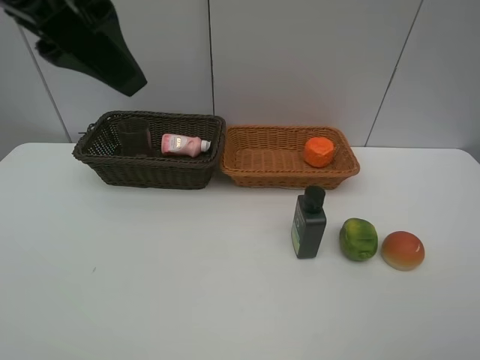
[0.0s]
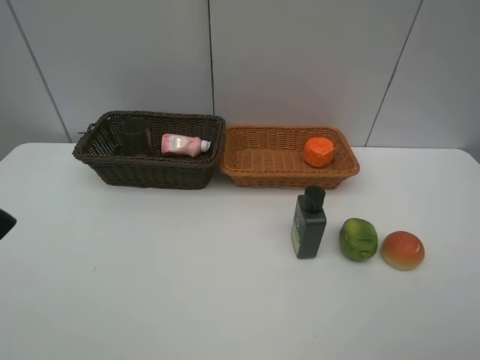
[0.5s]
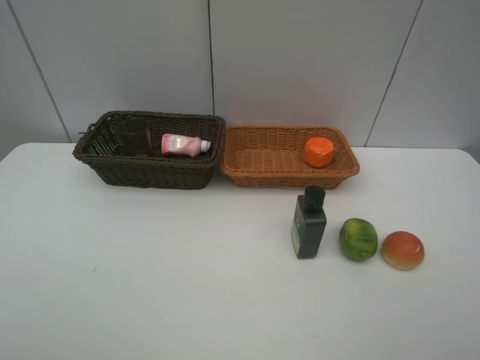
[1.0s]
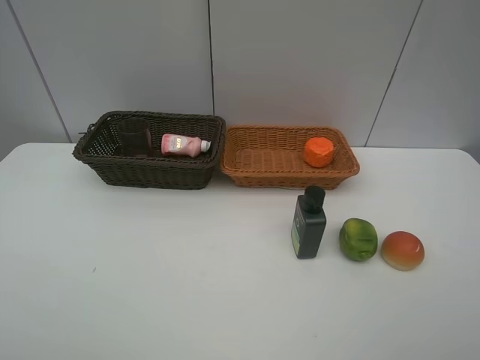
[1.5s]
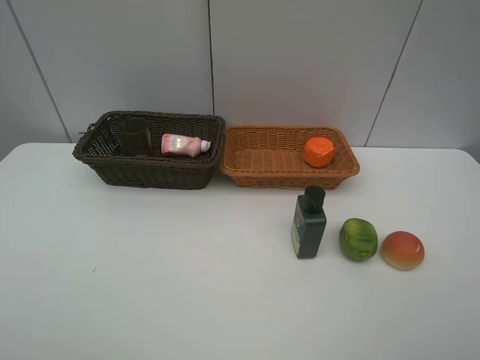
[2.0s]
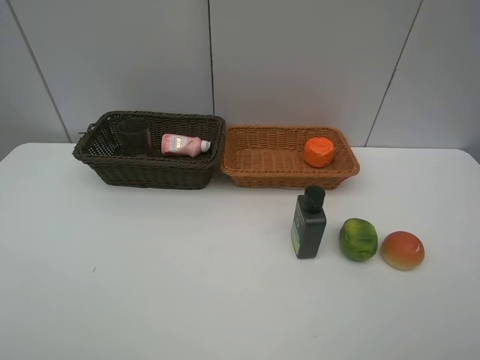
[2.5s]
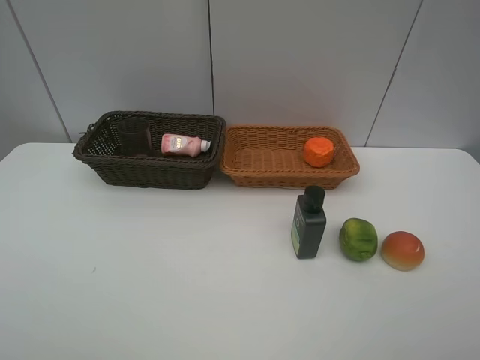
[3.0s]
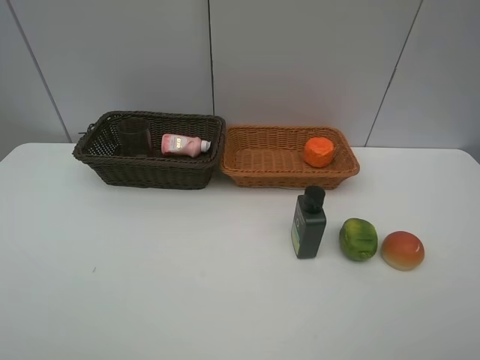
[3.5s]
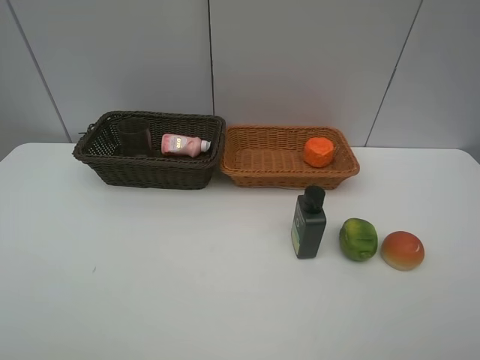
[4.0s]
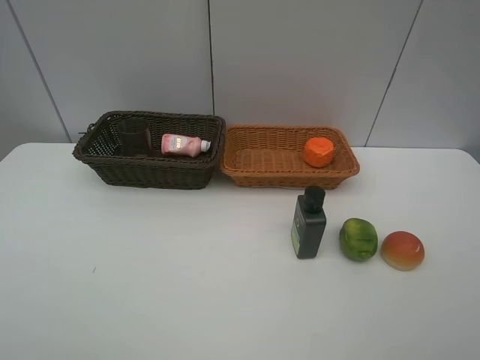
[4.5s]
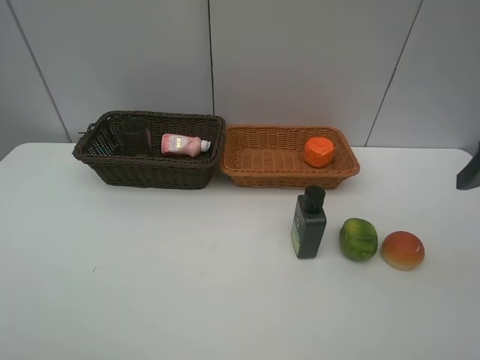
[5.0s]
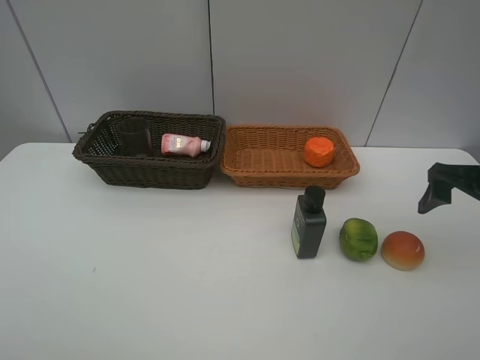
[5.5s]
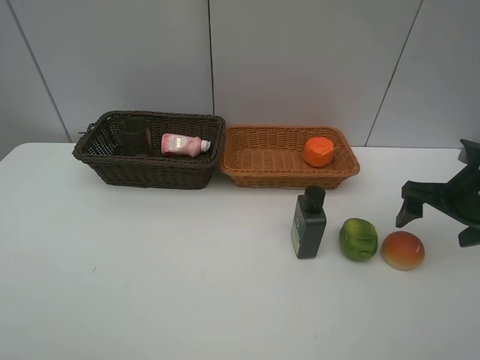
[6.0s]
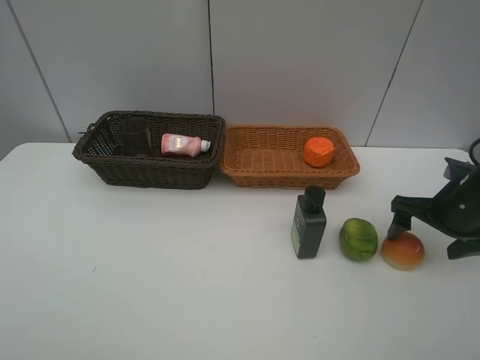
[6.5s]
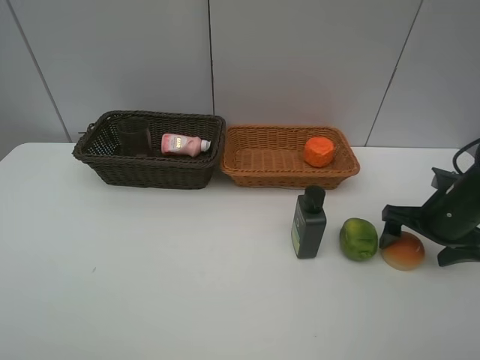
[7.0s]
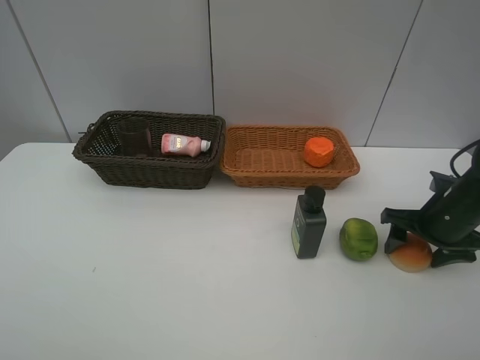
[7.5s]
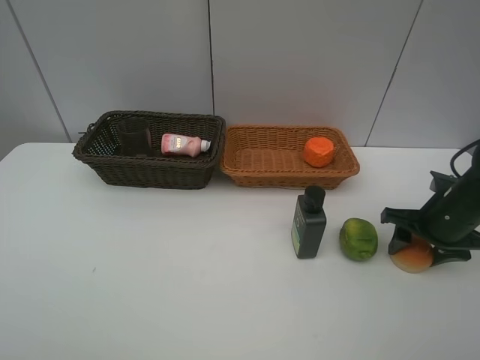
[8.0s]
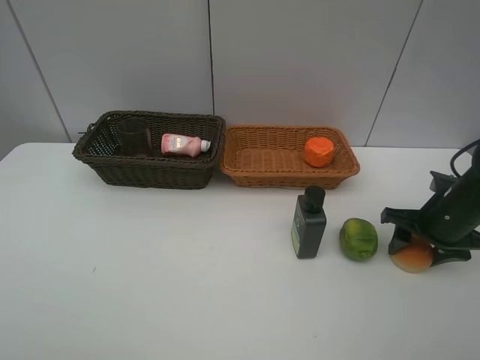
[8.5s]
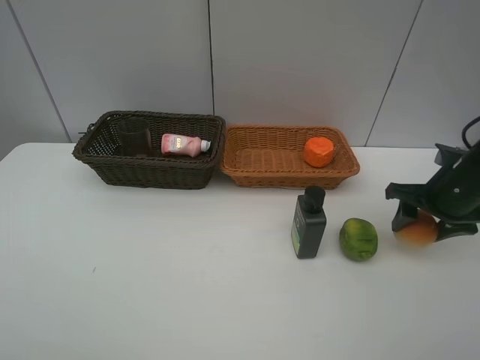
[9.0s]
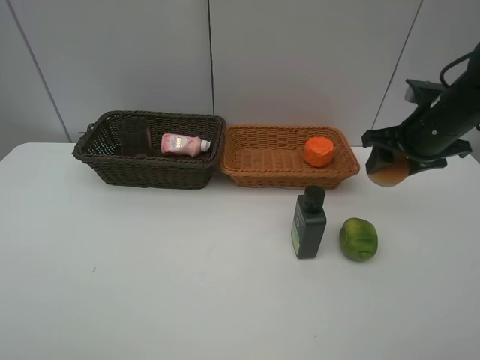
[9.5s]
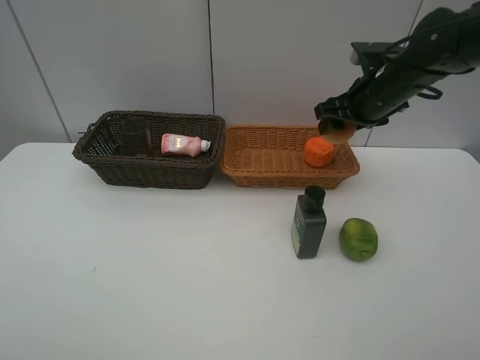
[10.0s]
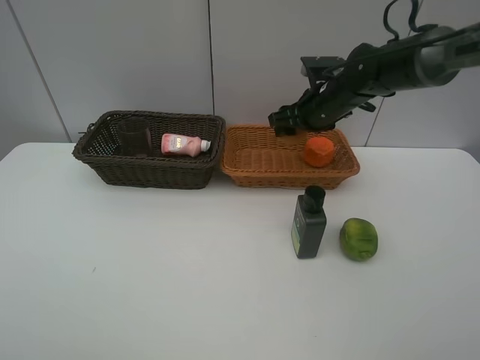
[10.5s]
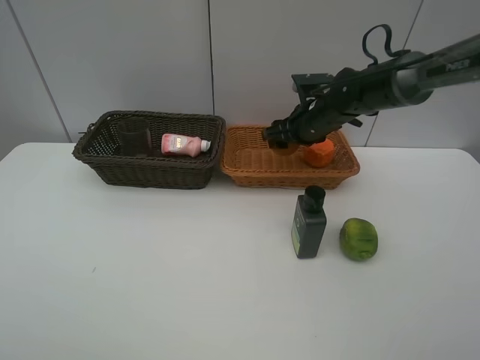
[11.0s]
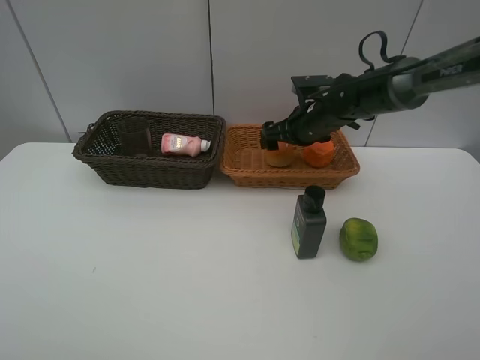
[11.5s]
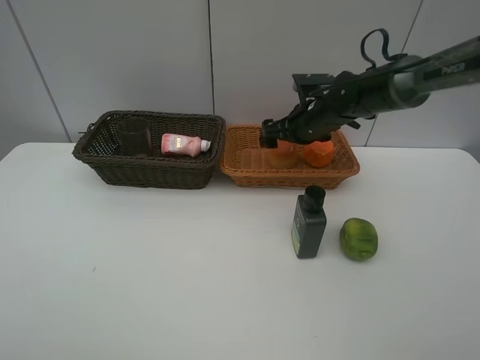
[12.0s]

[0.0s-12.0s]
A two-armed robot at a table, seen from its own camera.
Task of the whole recording: place multiple objects separately in different baskets.
0.0s to 2.0s: The left gripper goes roughly 30 cm backward, to the left and downward.
2.0s to 4.0s: The two grippers keep their place.
4.0s to 6.0s: The right gripper shifts about 30 cm forward and downward.
6.0s to 8.0s: The right gripper moves downward, roughly 5 cm, and closes its fingers.
8.0s to 10.0s: The right gripper goes roughly 20 cm upward, to the left and forward.
10.0s to 12.0s: The right gripper moves downward and to the left, about 10 cm, and opens its fingers.

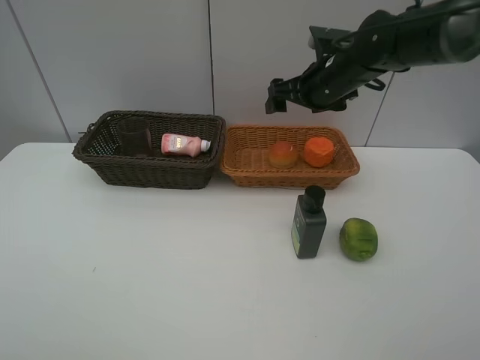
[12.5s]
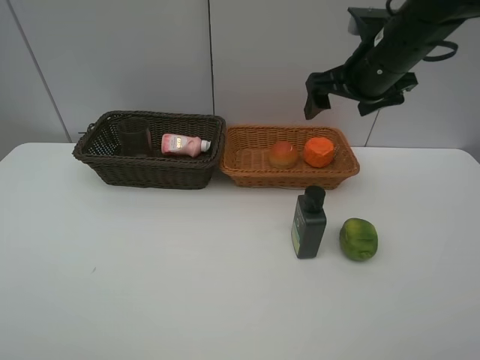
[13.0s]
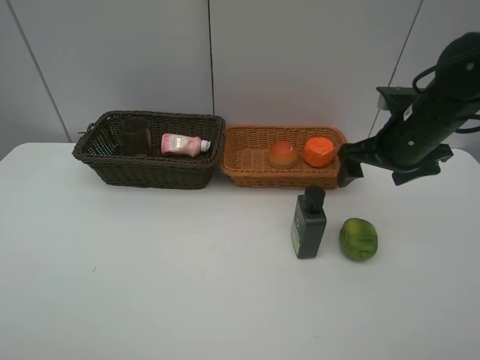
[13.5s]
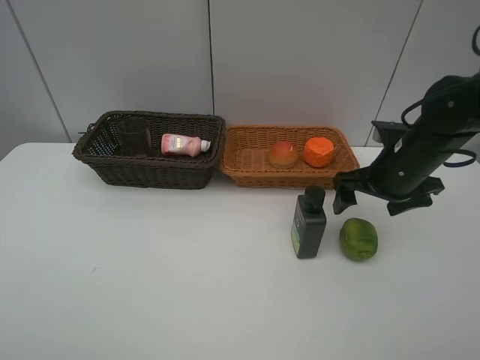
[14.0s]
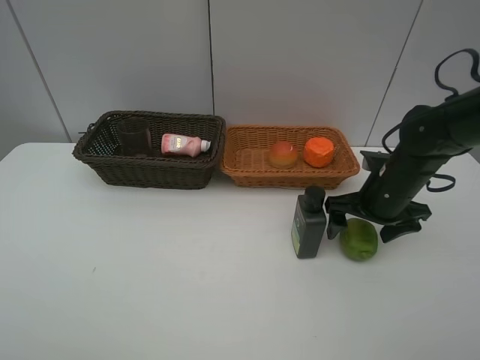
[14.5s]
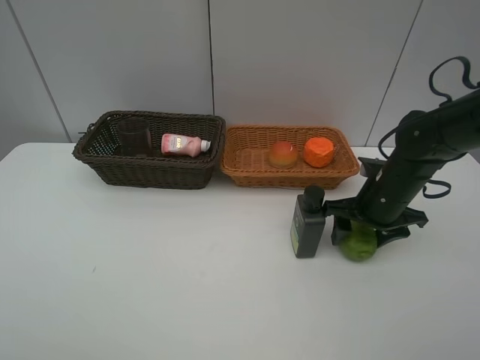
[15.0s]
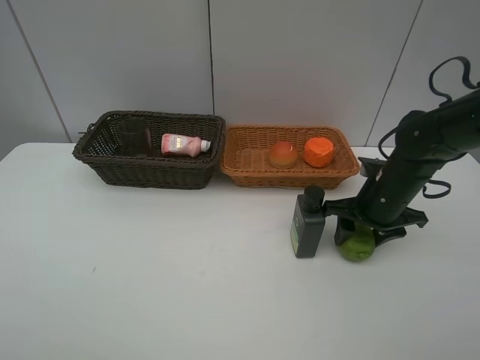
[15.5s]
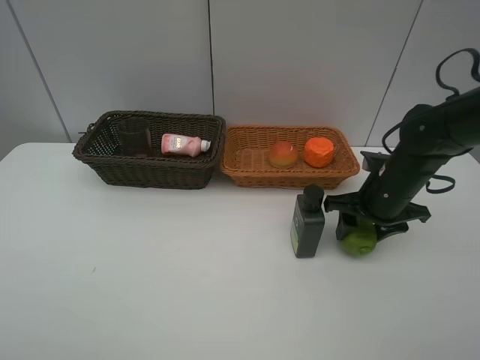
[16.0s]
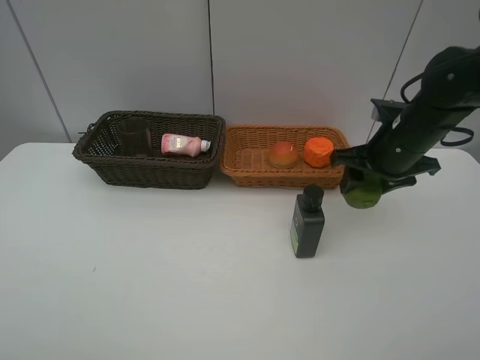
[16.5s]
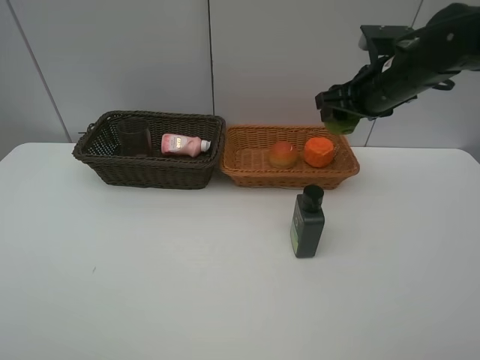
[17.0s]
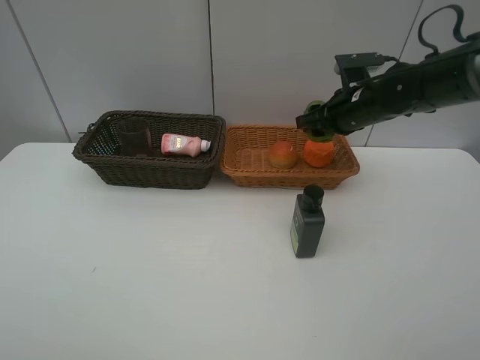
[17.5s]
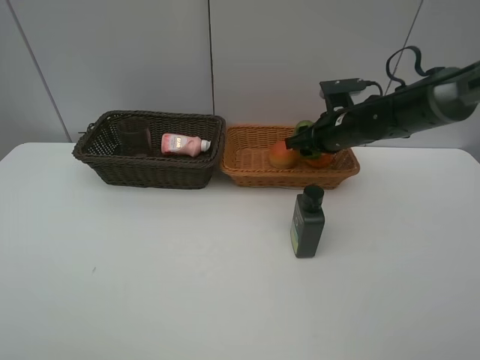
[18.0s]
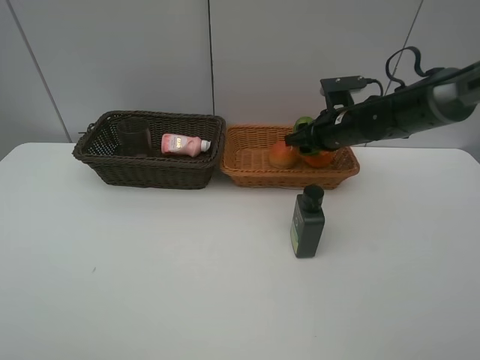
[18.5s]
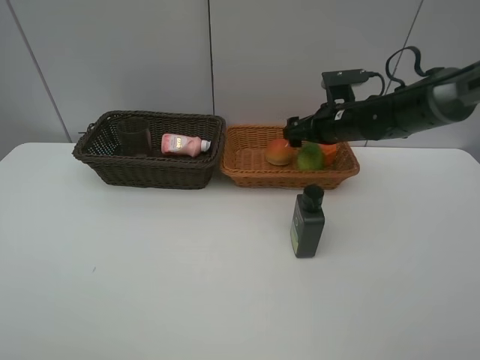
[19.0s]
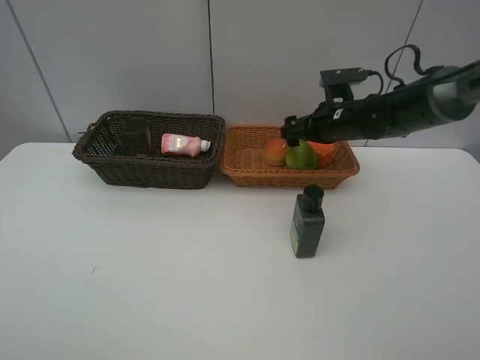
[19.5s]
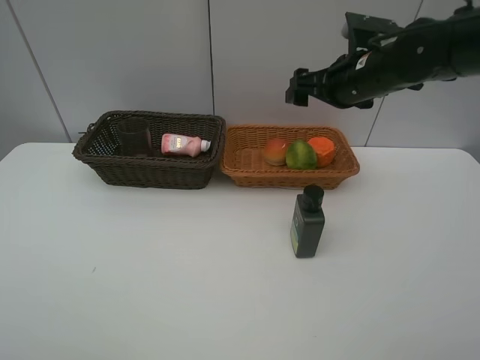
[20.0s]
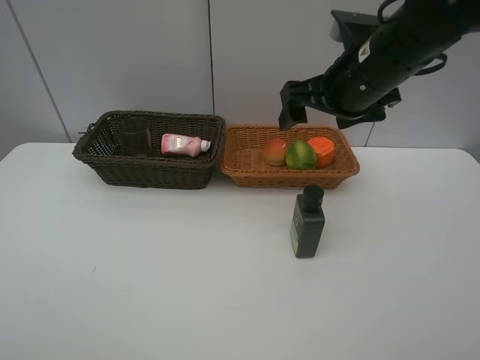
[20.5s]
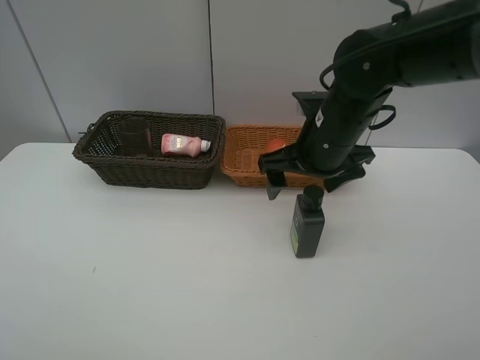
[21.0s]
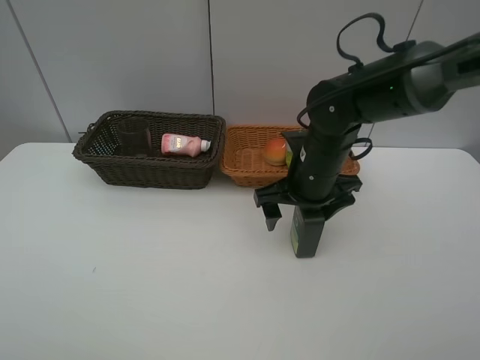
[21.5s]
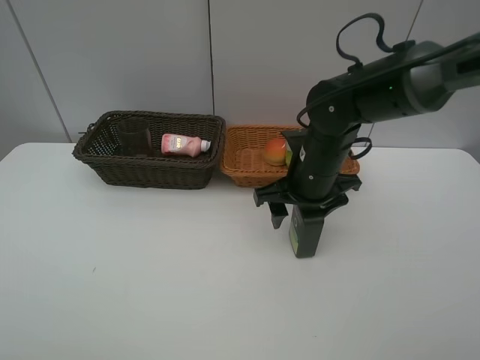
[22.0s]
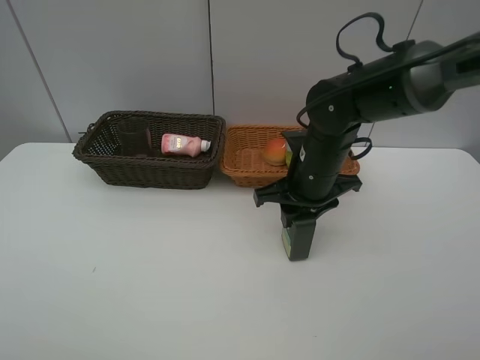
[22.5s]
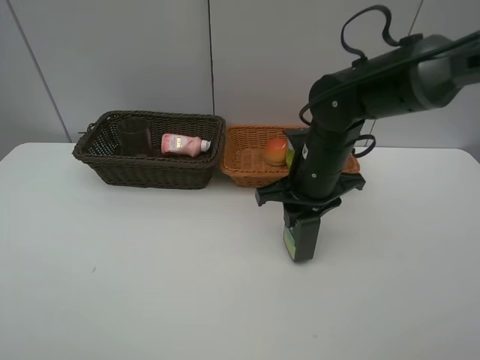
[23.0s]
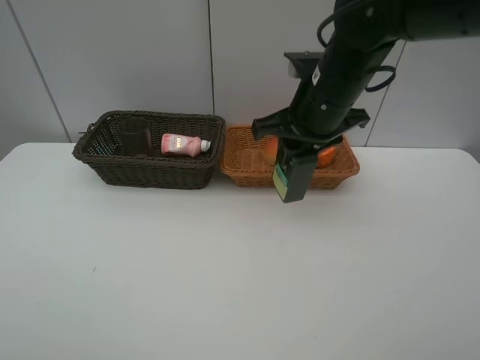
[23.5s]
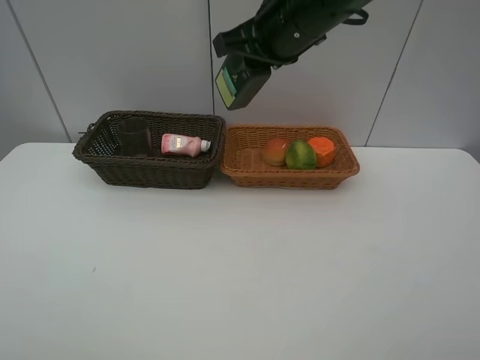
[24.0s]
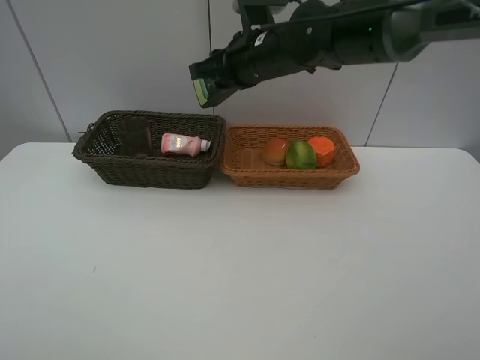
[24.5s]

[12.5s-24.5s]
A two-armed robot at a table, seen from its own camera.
Task of the whole recording: place multiple objects separately in different baskets.
12.5s to 14.5s: The right gripper moves downward, backward and to the right, about 20 cm.
14.5s to 16.5s: The right gripper travels upward by some 10 cm, and closes up.
16.5s to 18.5s: The right gripper moves forward, to the left and downward, some 10 cm.
18.5s to 20.5s: The right gripper heads upward and backward, covering about 15 cm, and opens.
20.5s to 22.5s: The right gripper is displaced downward by about 10 cm, and closes.
22.5s to 24.5s: The right gripper heads upward, to the left and forward, covering roughly 15 cm.

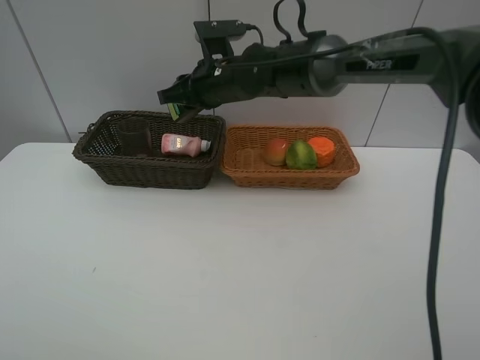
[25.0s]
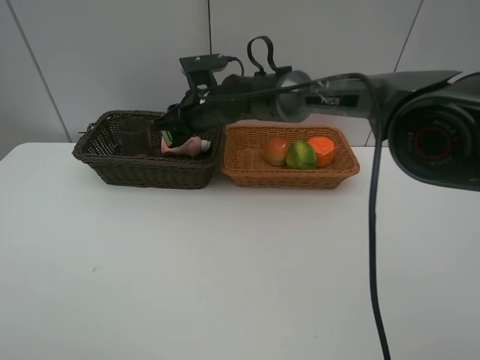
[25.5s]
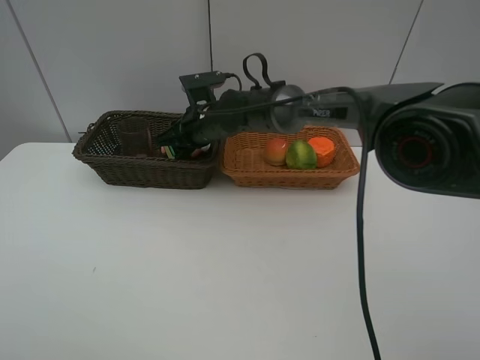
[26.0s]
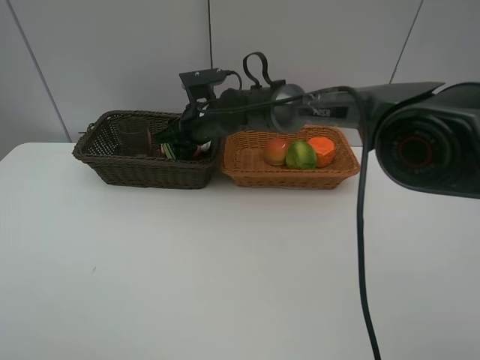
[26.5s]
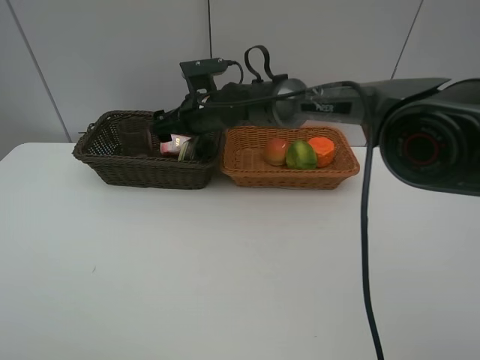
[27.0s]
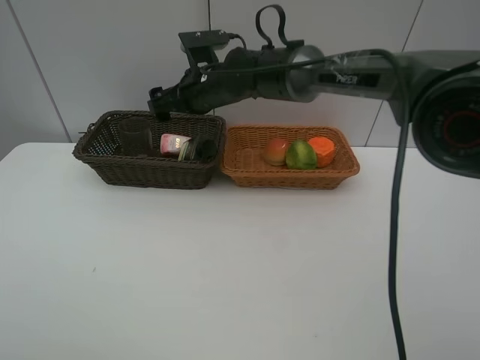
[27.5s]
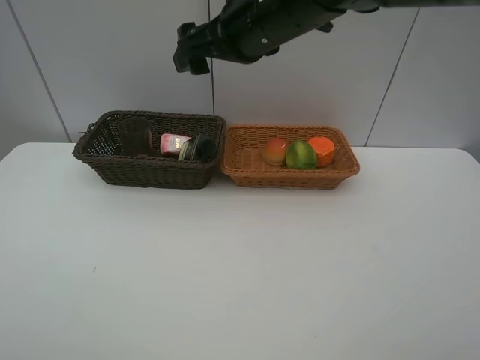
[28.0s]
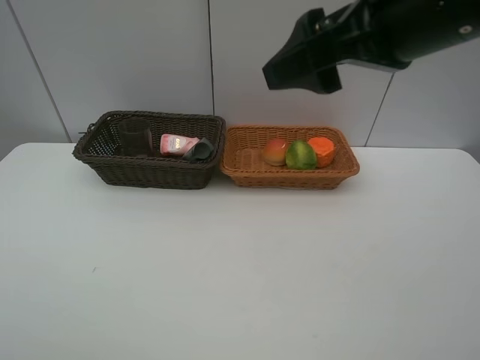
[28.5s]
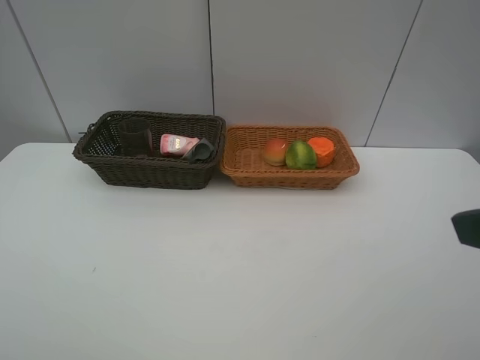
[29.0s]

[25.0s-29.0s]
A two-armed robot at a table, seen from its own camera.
Task of the whole recording: place multiple objects separately in different baskets.
25.0s to 27.0s: The right gripper is displaced downward by some 5 cm, and opens.
27.0s to 29.0s: The right gripper goes roughly 50 cm backward, to the right and upward.
